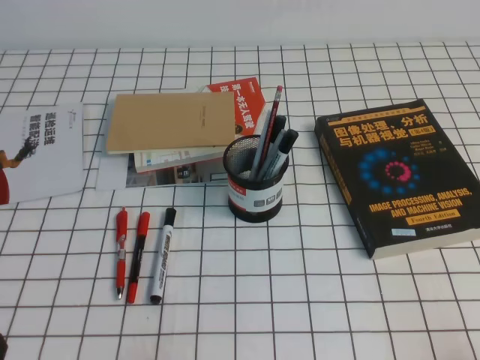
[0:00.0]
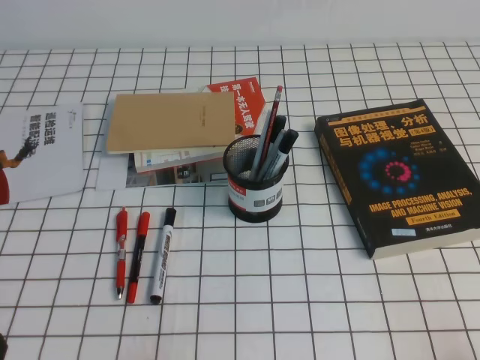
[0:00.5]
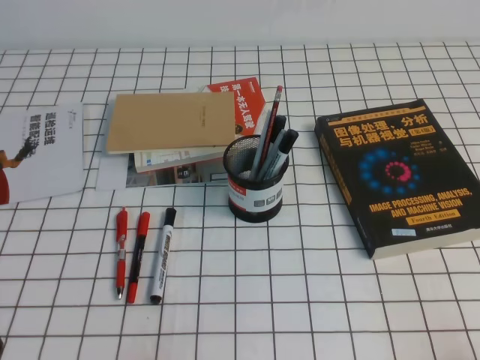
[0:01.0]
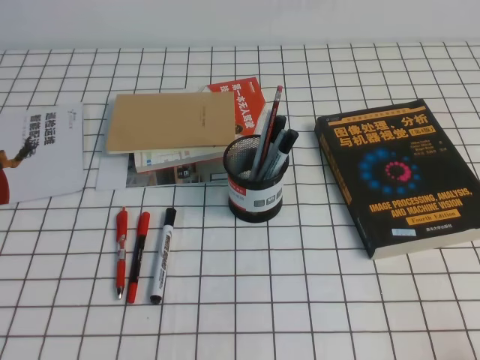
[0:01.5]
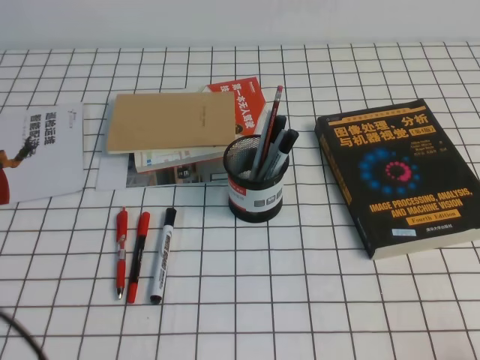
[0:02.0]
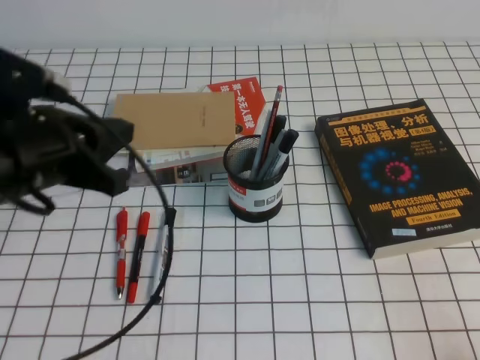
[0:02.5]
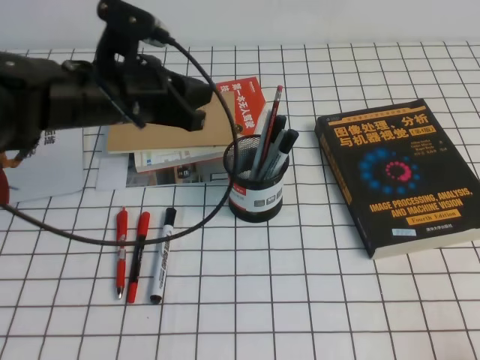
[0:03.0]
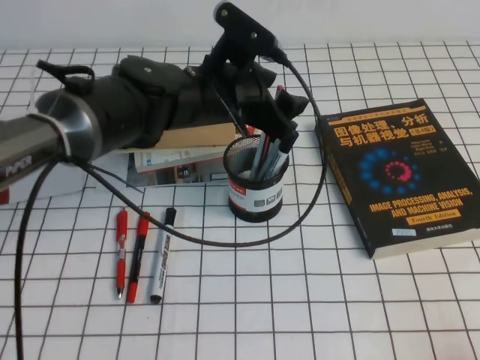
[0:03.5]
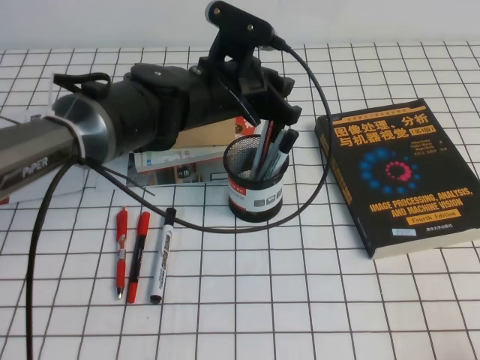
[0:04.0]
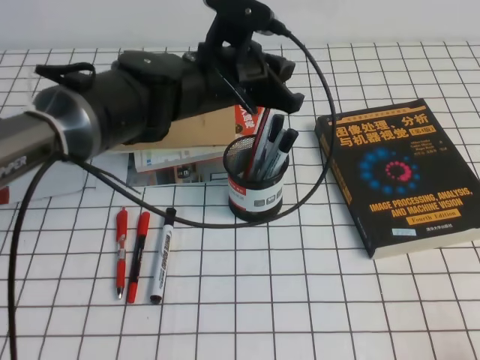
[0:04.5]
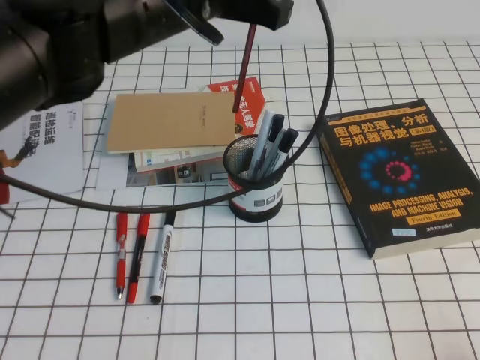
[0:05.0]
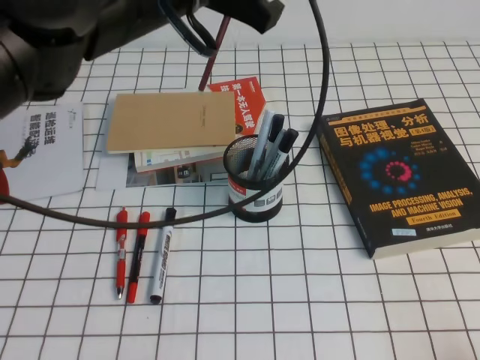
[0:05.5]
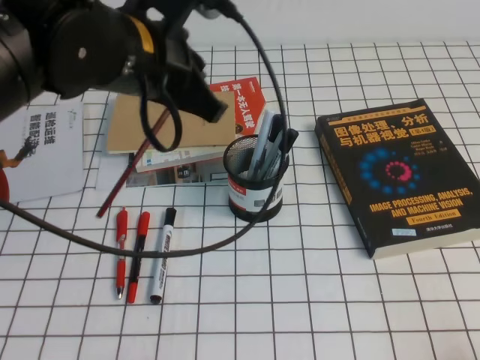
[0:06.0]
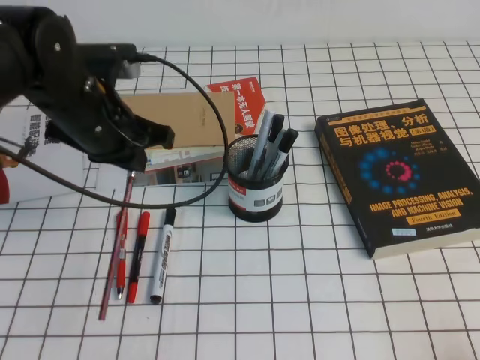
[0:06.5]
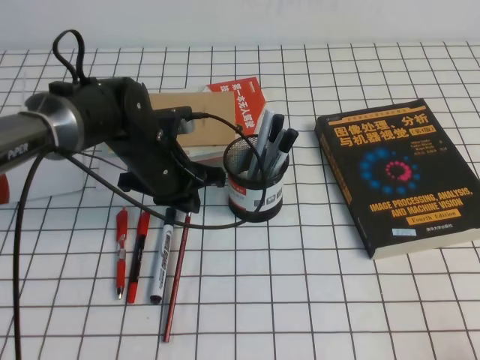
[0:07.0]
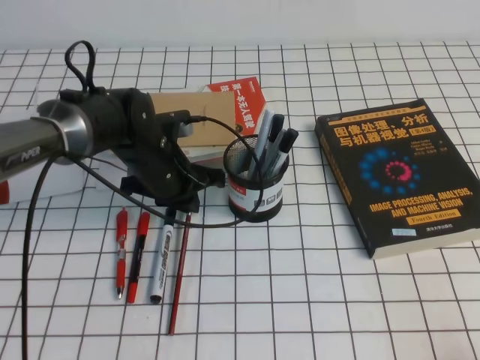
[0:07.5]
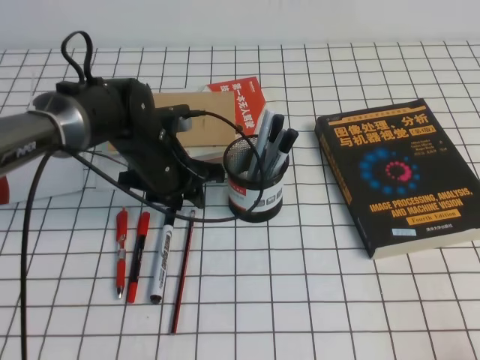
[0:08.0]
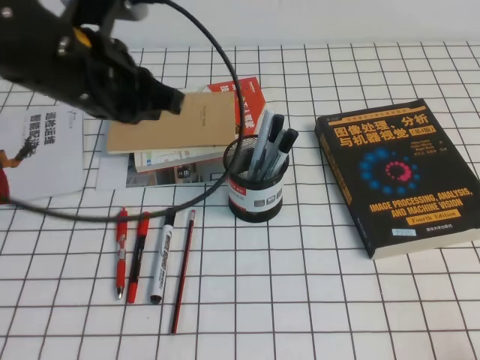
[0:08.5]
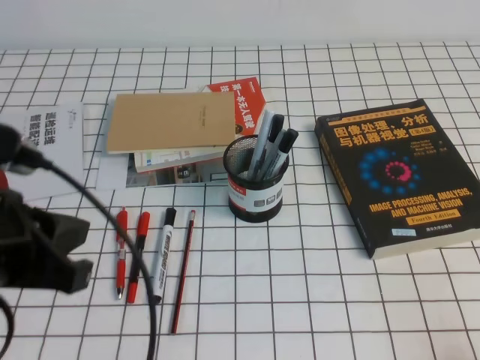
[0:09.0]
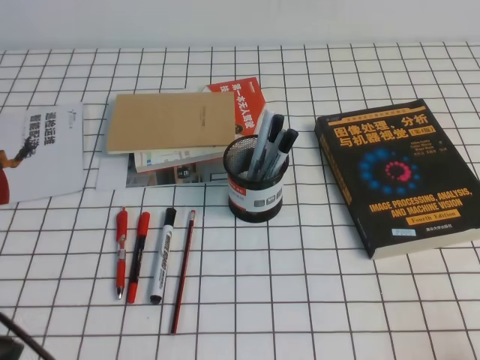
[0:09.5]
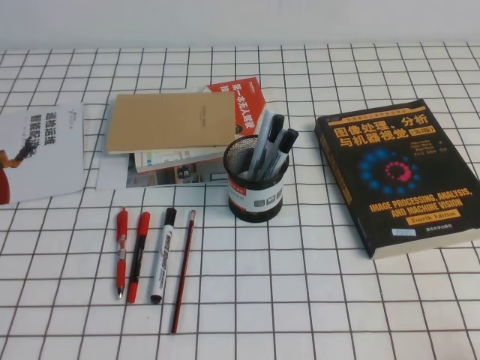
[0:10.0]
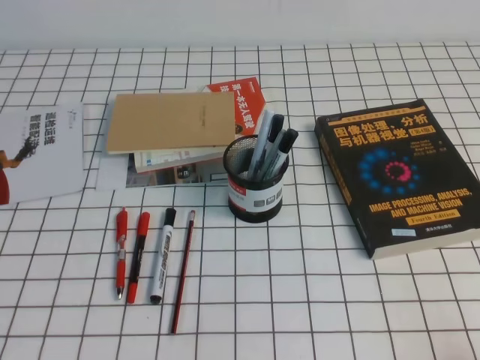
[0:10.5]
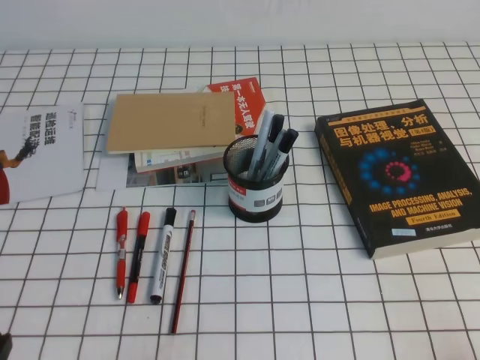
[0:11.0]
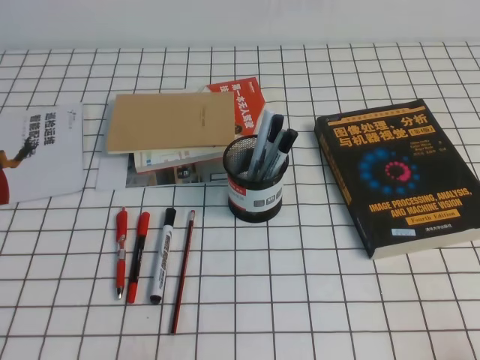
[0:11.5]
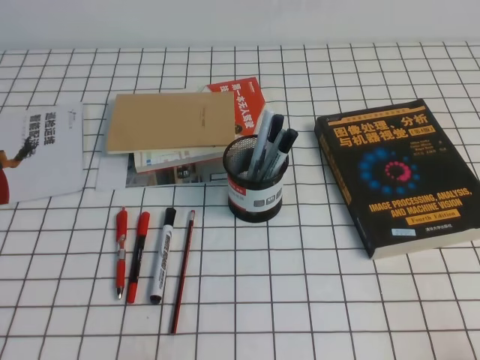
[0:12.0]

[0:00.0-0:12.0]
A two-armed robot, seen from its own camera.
Step, 0:00.0 to 0:12.0: Pick up the pen from the pen holder.
0:02.0 to 0:04.0: The left gripper goes roughly 40 cm forward and to the right, and opens its fingers.
0:04.0 to 0:06.0: The left gripper shifts about 15 cm upward and backward, and closes its fingers.
0:06.0 to 0:08.0: The left gripper goes approximately 25 cm downward and forward, and opens.
0:08.0 to 0:10.0: The left gripper is displaced backward and to the left by approximately 35 cm, and closes up.
